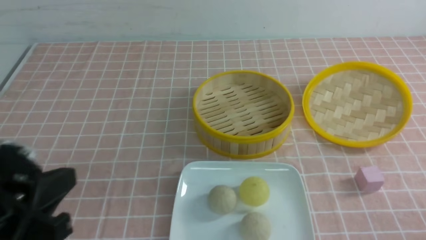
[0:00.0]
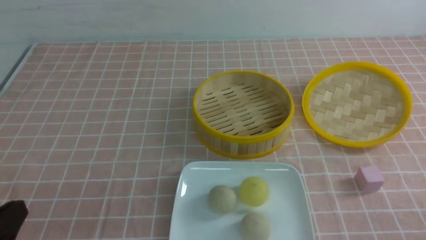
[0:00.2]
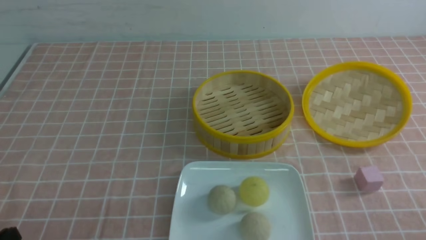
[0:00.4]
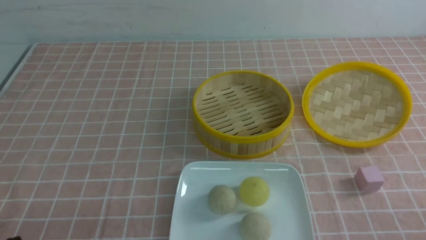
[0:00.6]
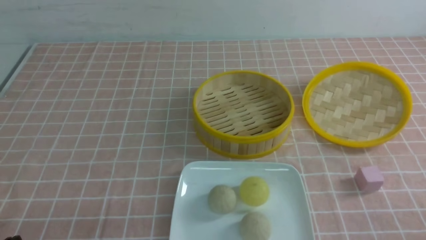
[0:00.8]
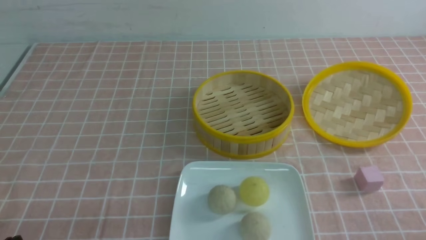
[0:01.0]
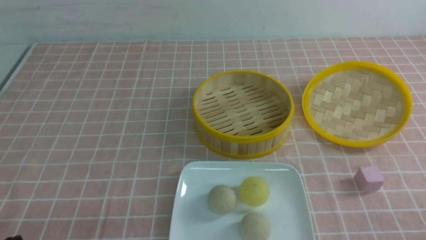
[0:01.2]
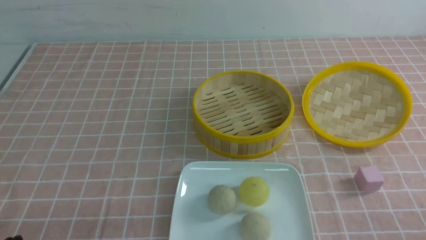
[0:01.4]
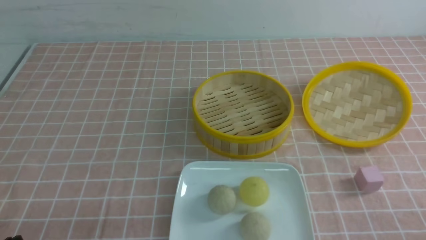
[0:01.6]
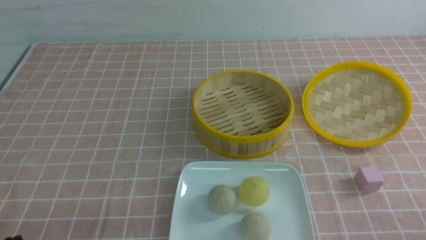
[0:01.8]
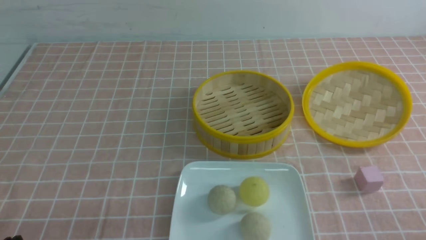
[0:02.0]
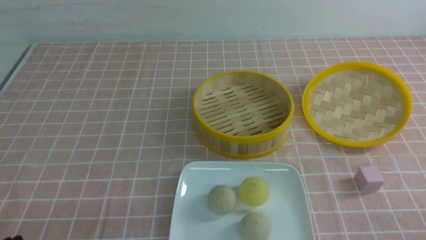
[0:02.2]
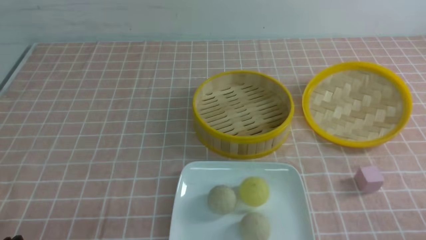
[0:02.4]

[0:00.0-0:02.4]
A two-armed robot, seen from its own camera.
0:00.0 to 0:01.2: The left gripper moves downward, roughly 10 cm.
0:01.2 to 0:02.4: Both grippers stay put.
